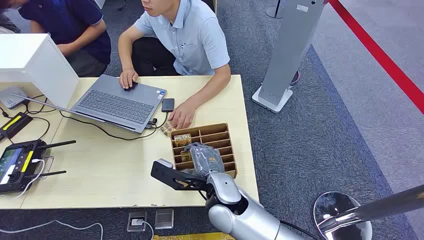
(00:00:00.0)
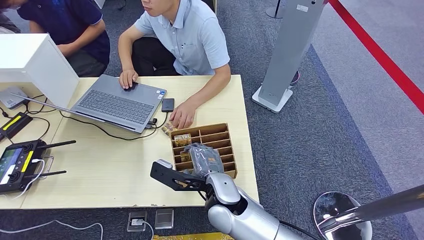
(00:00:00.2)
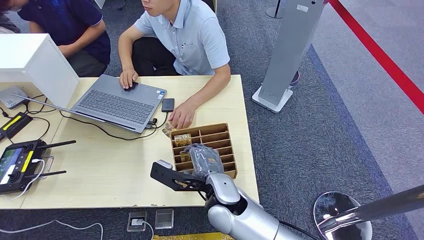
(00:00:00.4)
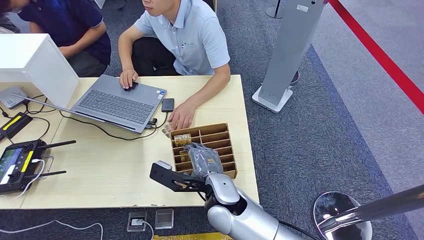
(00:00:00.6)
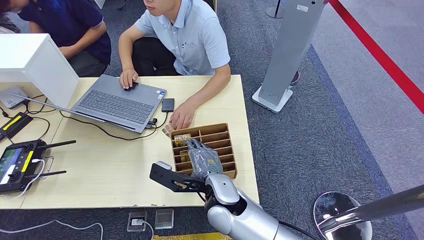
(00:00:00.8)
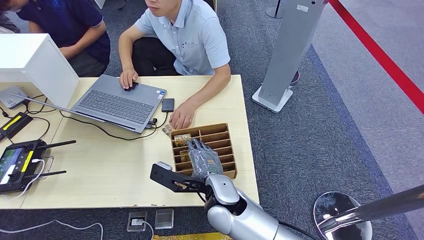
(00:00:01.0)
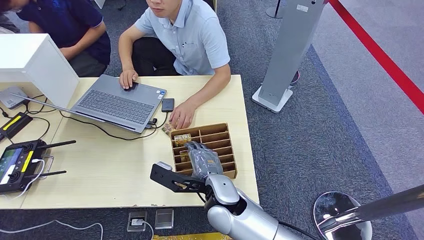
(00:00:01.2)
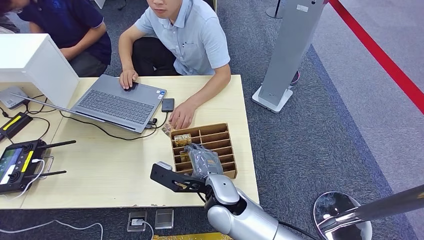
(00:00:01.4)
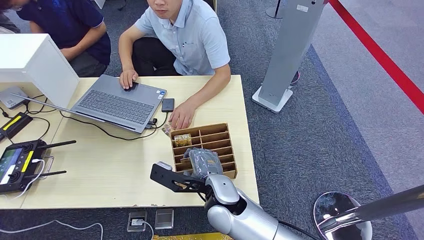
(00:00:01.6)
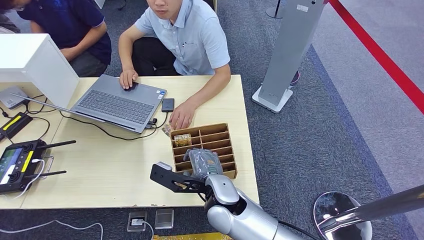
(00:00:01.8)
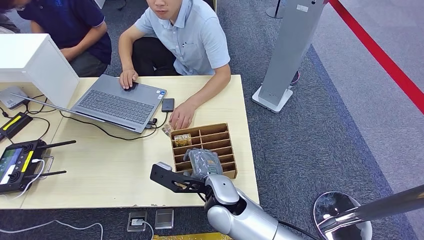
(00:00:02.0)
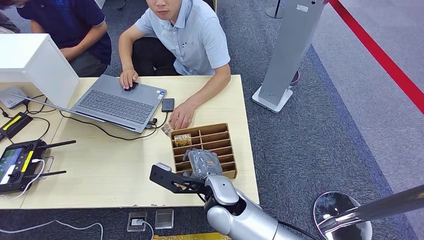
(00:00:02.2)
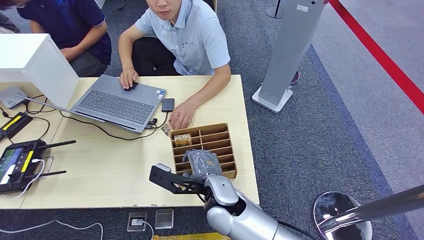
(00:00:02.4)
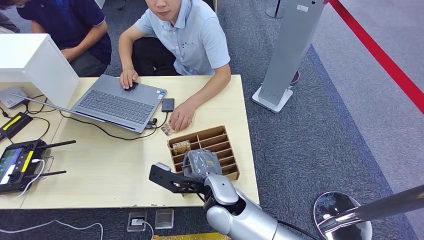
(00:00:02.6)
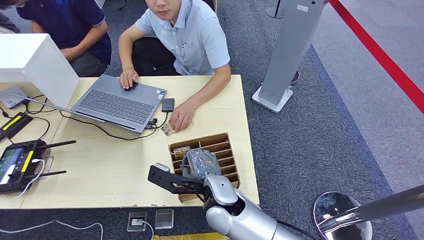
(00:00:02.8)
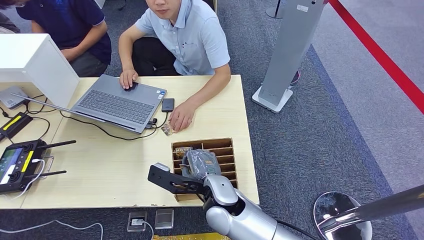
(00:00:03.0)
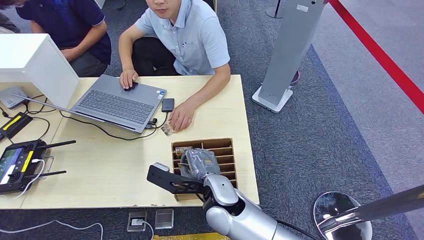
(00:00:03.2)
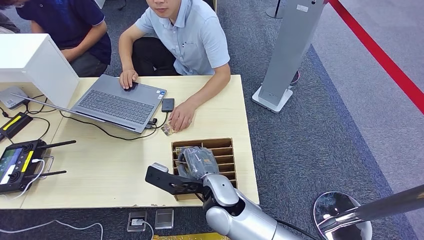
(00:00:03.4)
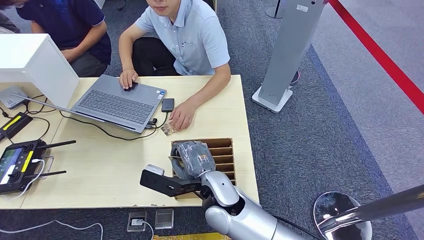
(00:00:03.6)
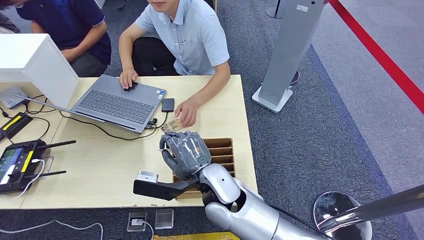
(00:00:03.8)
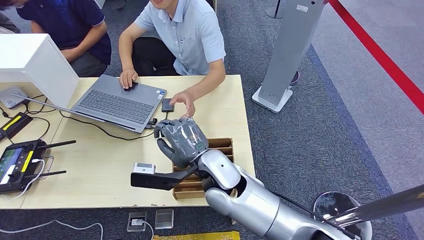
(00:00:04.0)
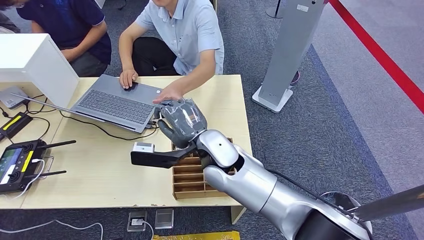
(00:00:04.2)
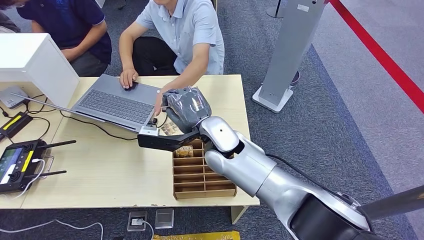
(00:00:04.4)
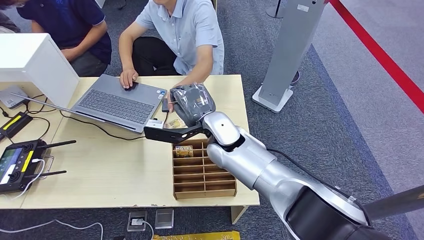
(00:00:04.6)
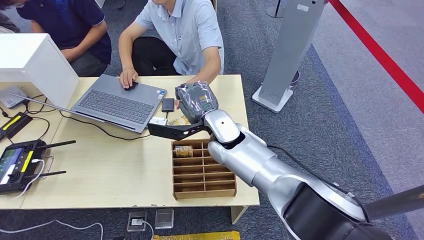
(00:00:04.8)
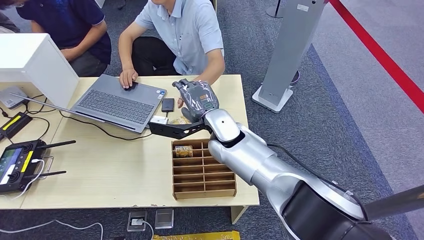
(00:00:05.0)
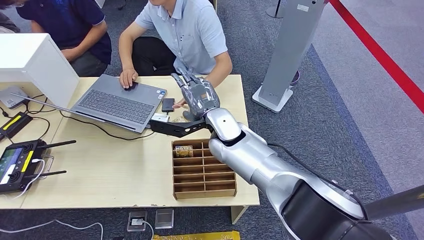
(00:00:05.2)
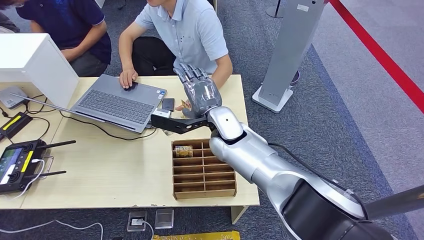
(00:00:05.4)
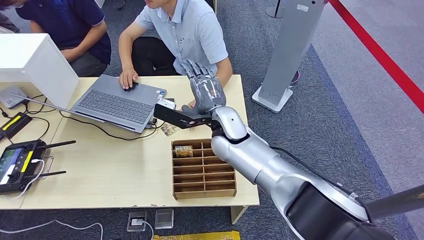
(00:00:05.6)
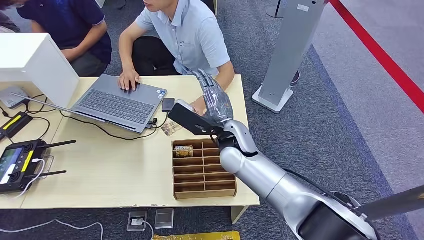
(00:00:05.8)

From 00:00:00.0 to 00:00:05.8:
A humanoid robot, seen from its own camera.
Step, from 00:00:00.0 to 00:00:03.6: Pick up the key card from the card box.
Step, from 00:00:04.0 to 00:00:05.6: Hand the key card to the target.
From 00:00:01.4 to 00:00:02.8: Neither hand changes place.
From 00:00:02.8 to 00:00:04.4: The right hand travels forward and upward by roughly 15 cm.
